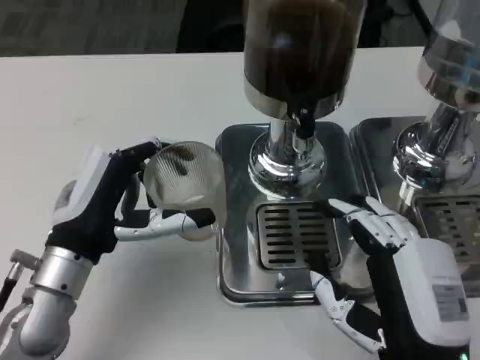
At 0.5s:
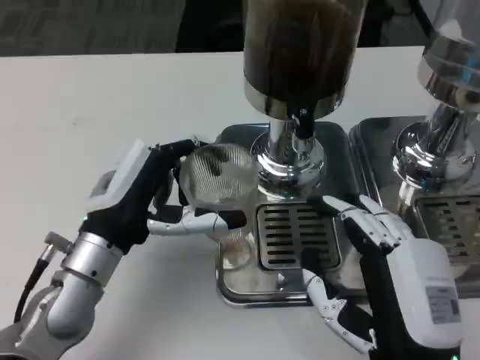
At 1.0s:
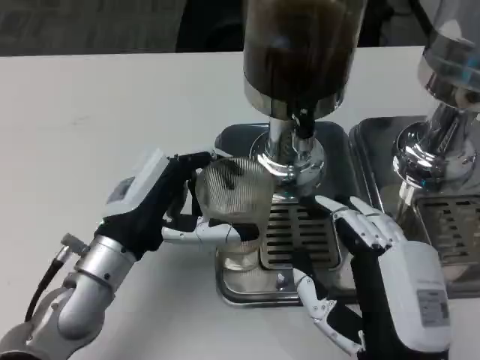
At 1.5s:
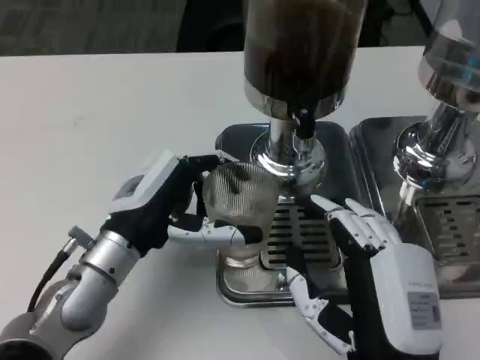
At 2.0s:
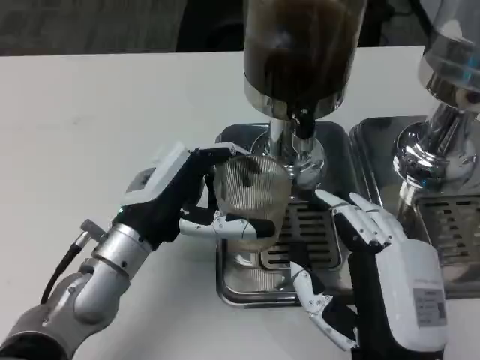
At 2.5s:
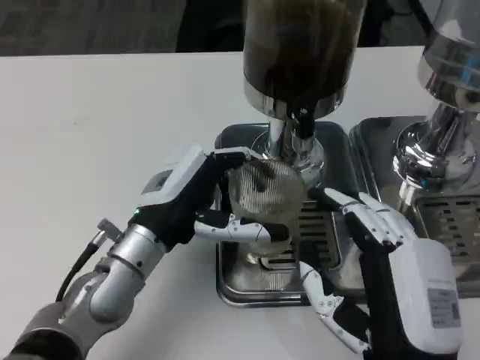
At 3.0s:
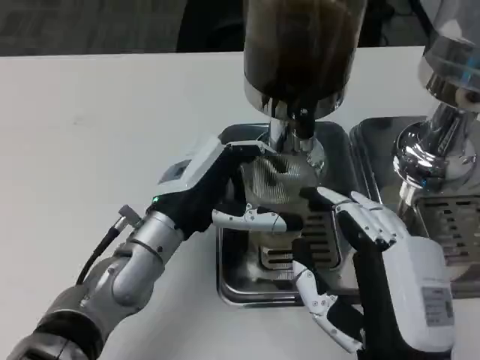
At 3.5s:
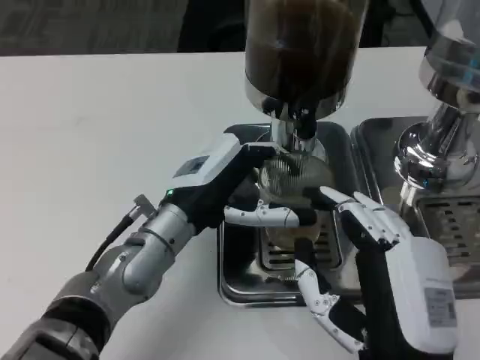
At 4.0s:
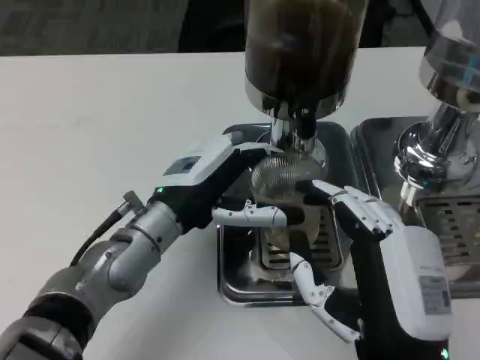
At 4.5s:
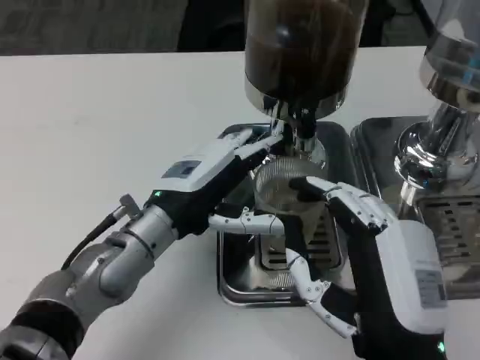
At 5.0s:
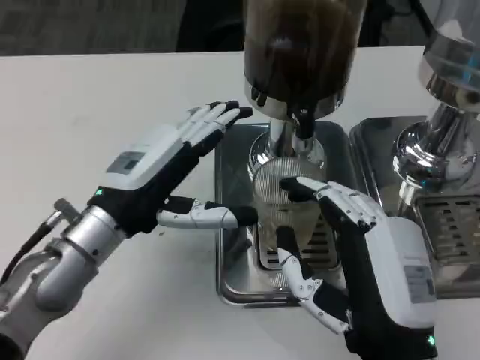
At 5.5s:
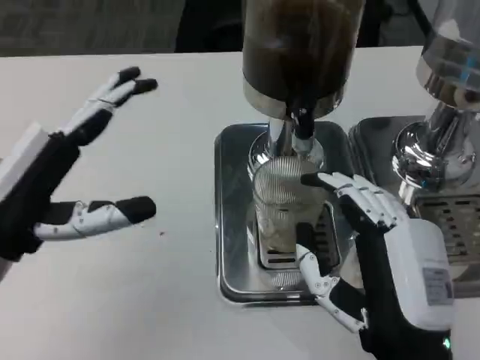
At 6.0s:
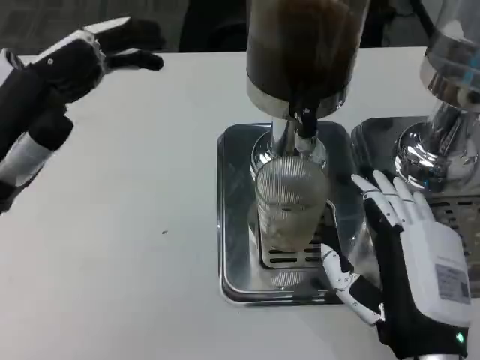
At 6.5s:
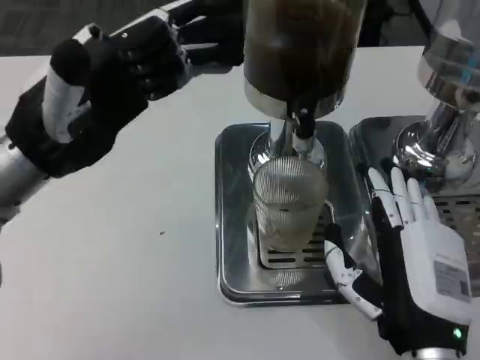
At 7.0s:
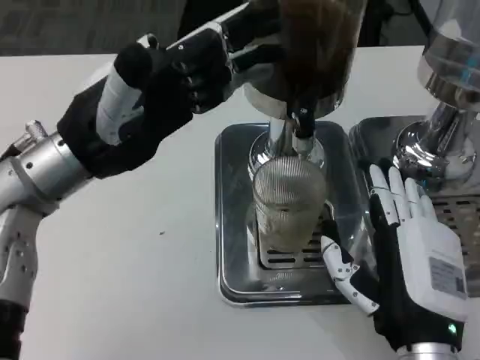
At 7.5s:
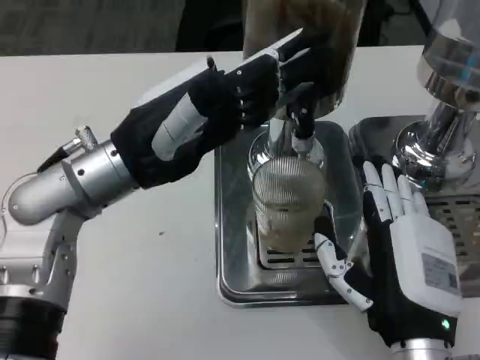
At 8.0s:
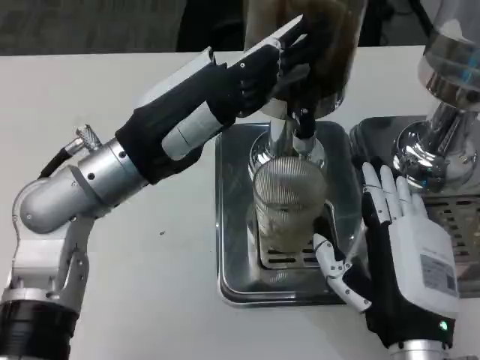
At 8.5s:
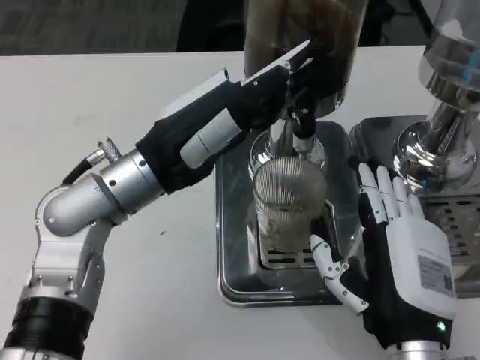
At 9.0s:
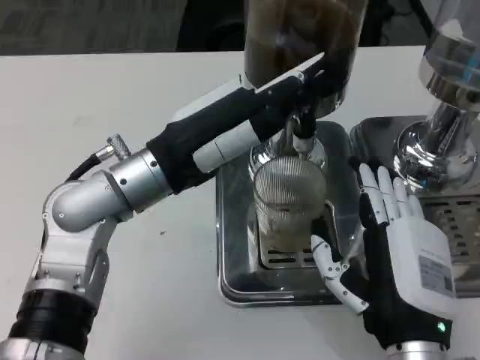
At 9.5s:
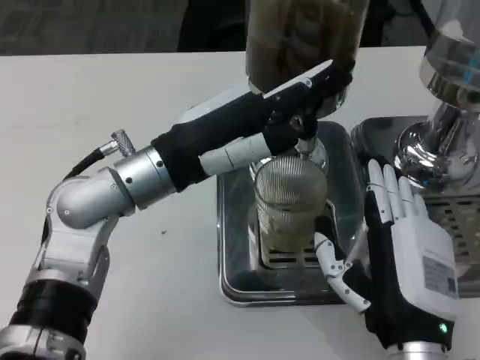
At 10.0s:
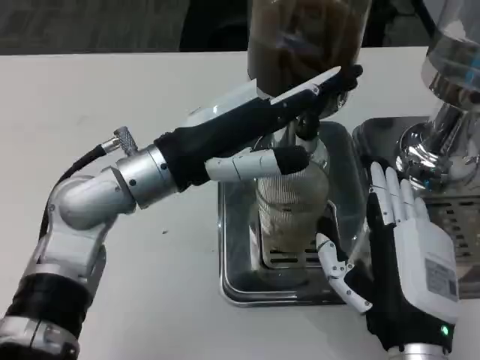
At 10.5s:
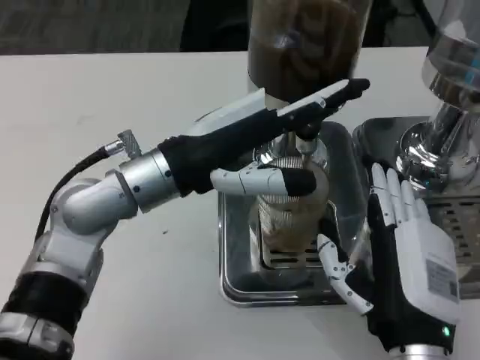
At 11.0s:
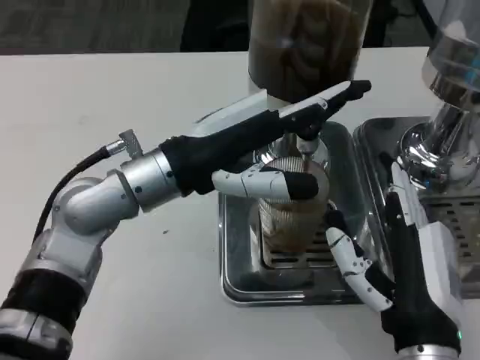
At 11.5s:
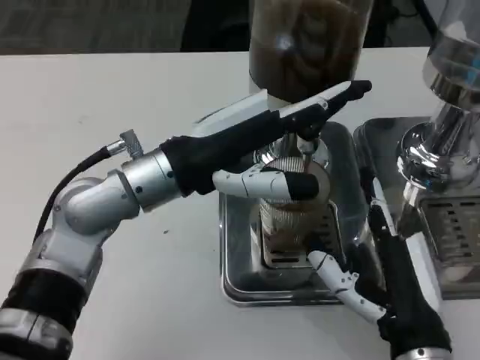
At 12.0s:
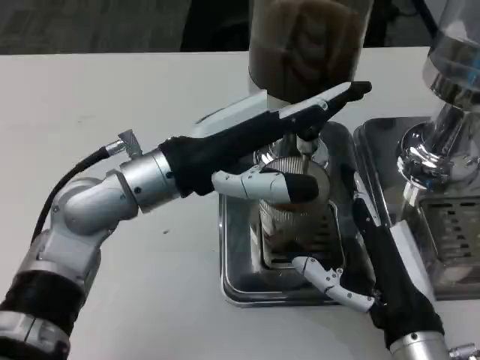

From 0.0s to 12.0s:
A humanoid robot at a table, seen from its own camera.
Task of the whole recording: Grasp the cup under the faucet to collect the drink, then remove the cup.
From 0.0s to 2.0s: The left hand ends up some 5 cm from where it was.
From 4.0s to 6.0s: The left hand moves to the left, upward and backward, some 15 cm.
From 6.0s to 8.0s: The left hand shifts approximately 10 cm to the right and forward.

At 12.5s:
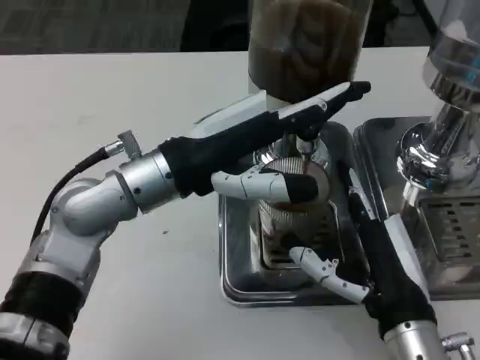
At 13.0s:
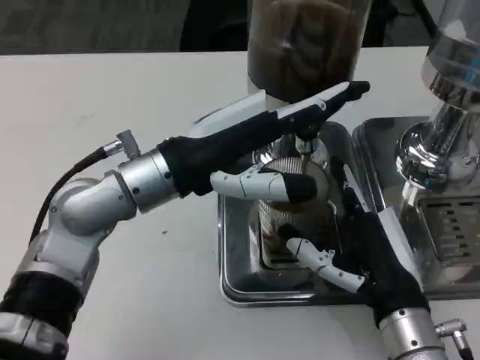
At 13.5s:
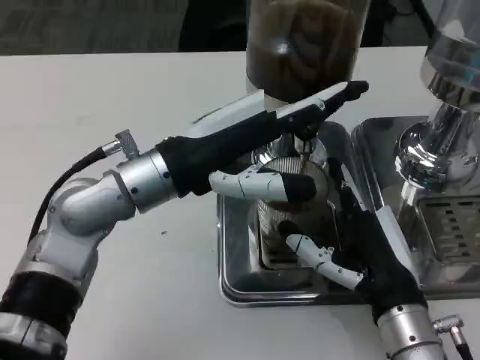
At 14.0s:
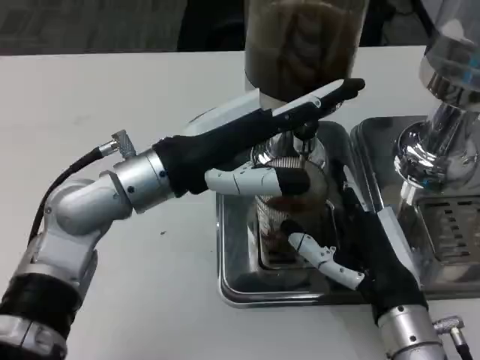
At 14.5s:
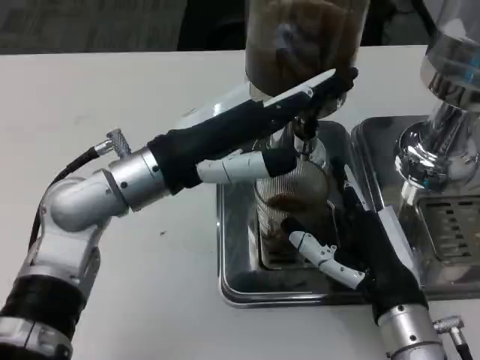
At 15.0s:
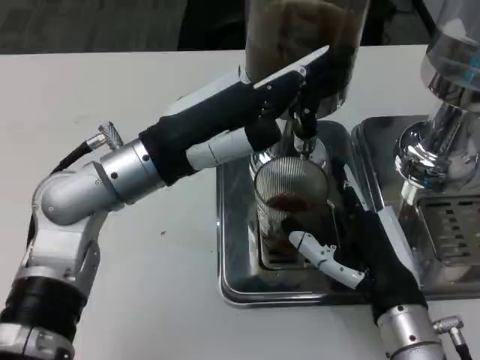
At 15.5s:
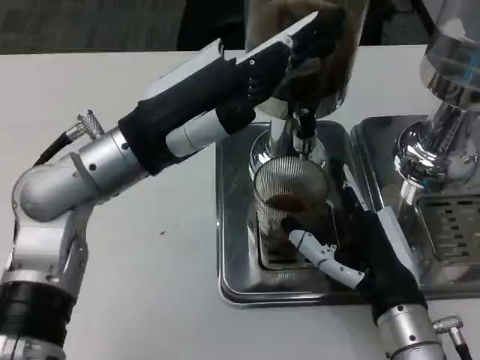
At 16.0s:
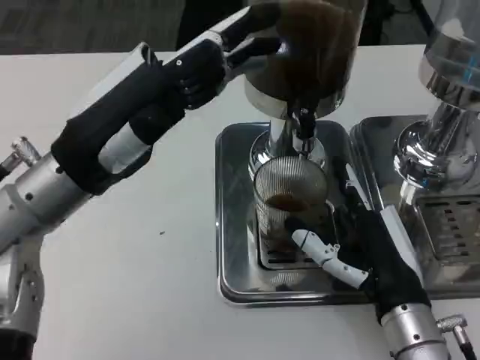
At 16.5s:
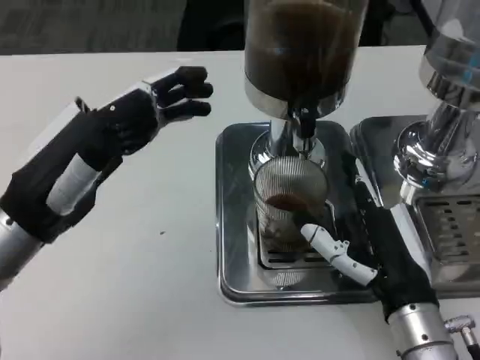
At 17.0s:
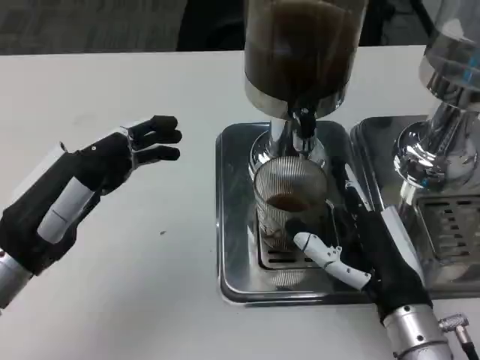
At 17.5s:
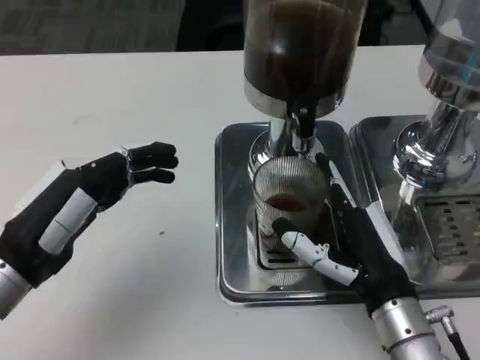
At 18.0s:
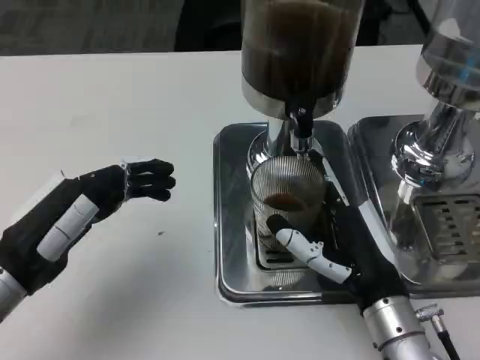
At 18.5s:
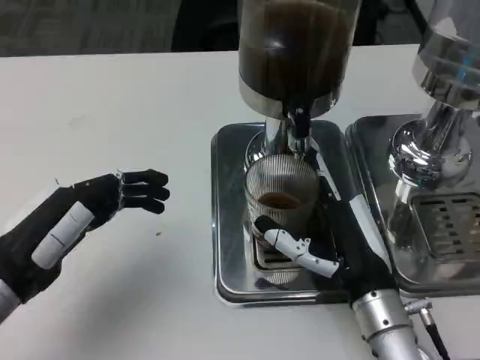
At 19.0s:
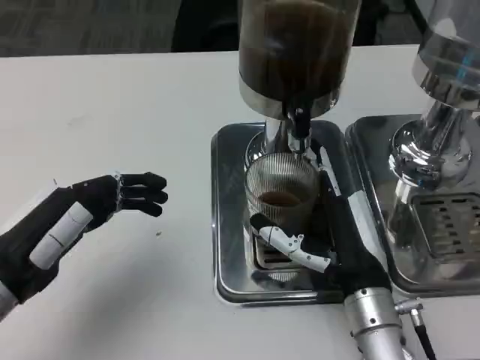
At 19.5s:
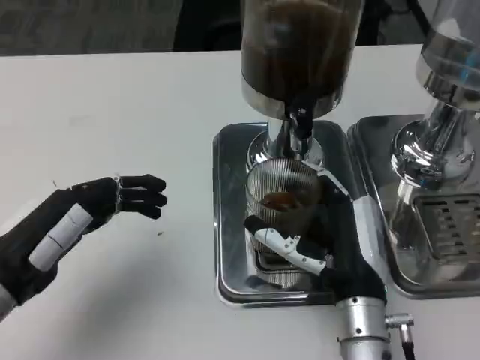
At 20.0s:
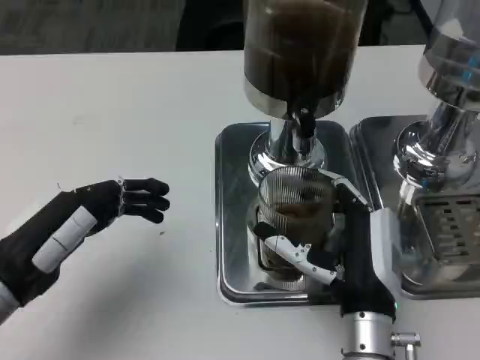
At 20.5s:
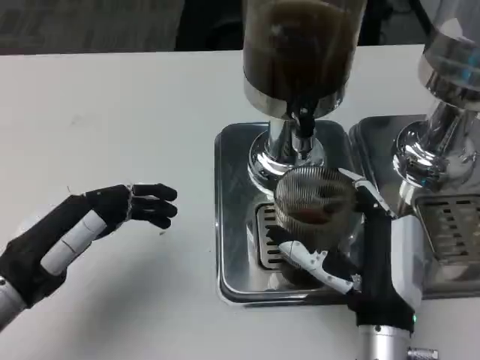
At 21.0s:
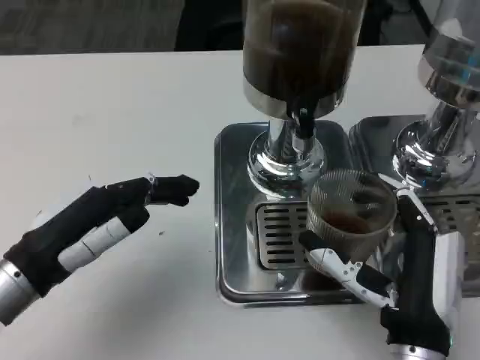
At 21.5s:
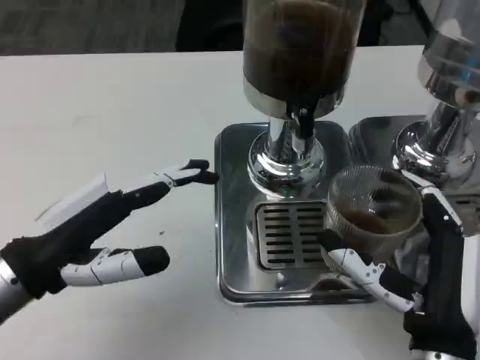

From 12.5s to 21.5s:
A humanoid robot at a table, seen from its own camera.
Task of the whole recording: Grasp the cup under the faucet to collect the drink, then remove the cup.
From 14.5s to 17.0s: The left hand heads to the left and backward, covering approximately 15 cm.
From 17.0s to 19.5s: The right hand shifts about 5 cm to the left.
From 19.5s to 21.5s: The right hand shifts some 5 cm backward.

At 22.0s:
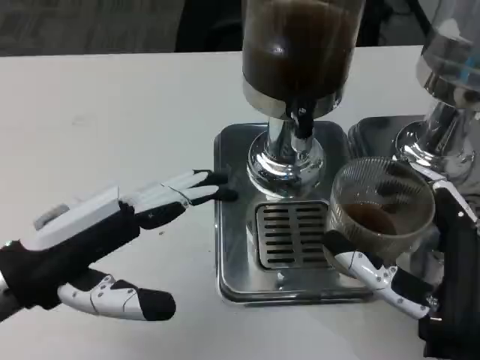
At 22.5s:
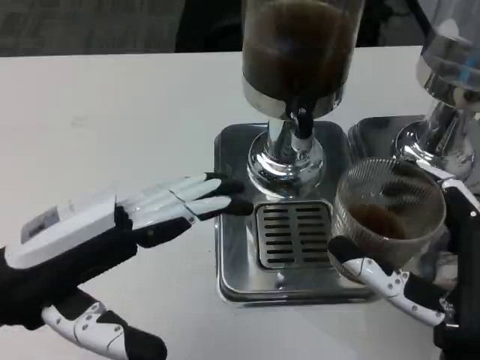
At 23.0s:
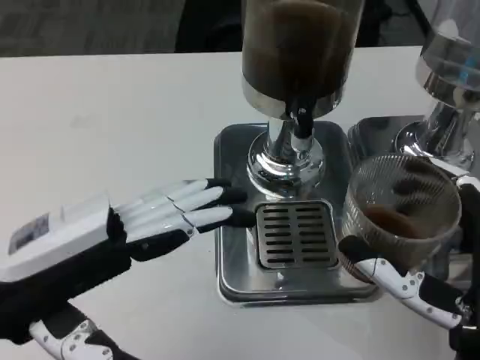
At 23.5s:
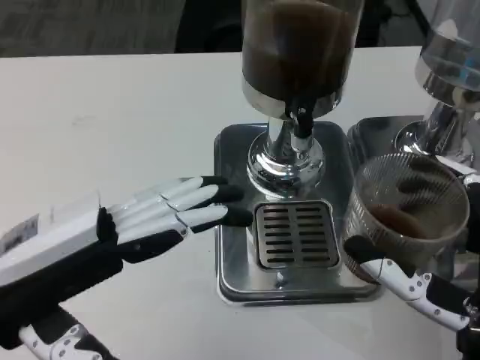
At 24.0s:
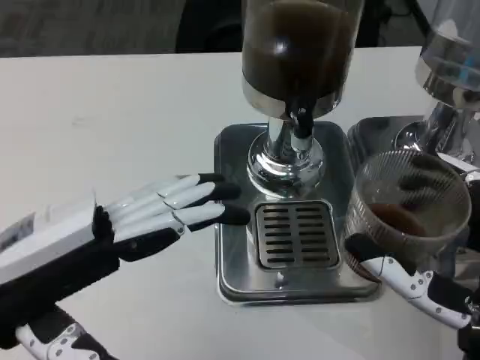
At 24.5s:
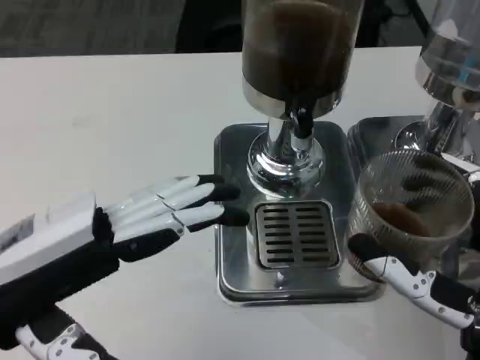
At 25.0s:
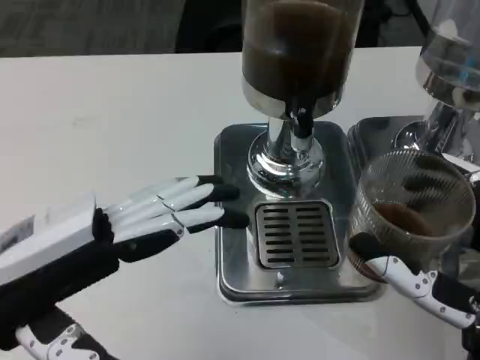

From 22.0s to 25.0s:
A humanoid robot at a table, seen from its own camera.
Task of the whole recording: Grasp the cup under the faucet to collect the drink, then remove the cup.
From 23.5s to 25.0s: Both hands stay about where they are.
